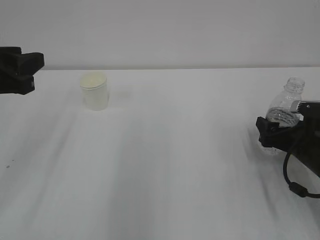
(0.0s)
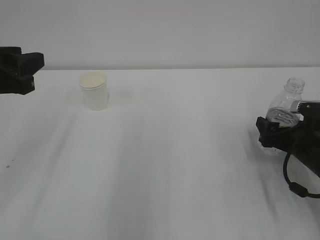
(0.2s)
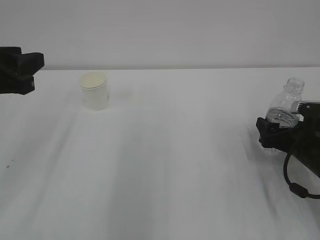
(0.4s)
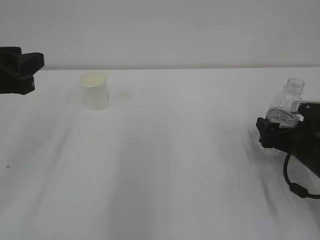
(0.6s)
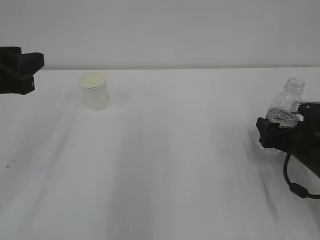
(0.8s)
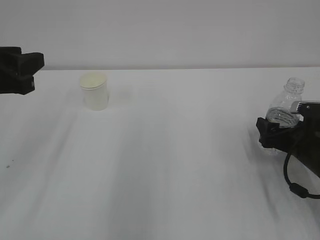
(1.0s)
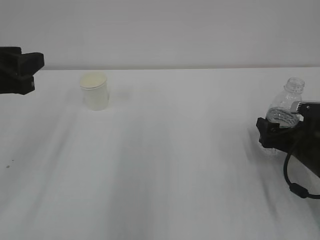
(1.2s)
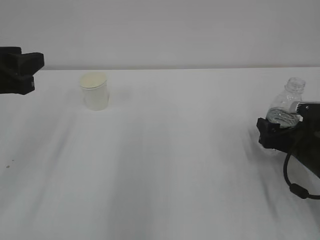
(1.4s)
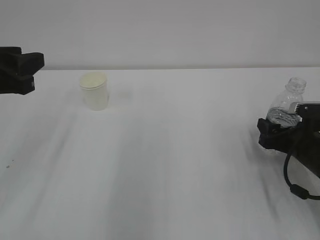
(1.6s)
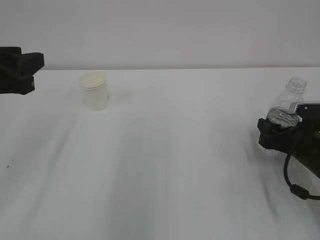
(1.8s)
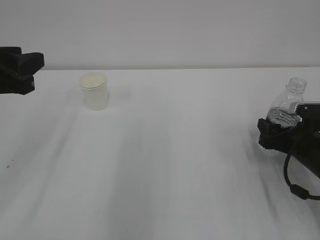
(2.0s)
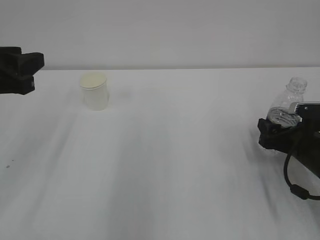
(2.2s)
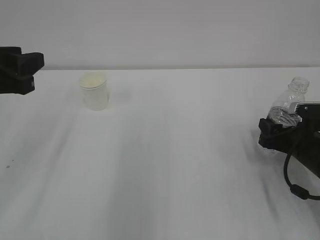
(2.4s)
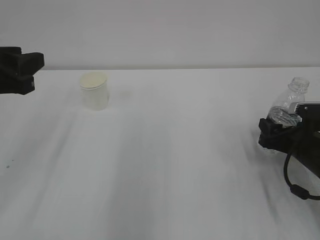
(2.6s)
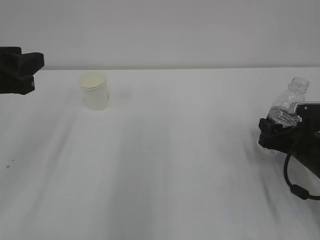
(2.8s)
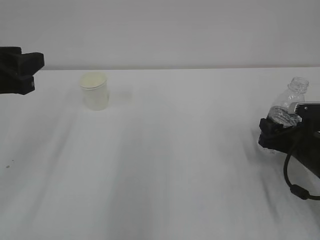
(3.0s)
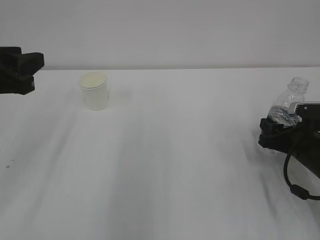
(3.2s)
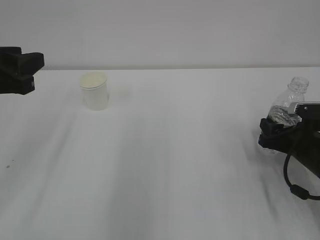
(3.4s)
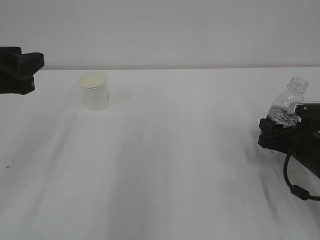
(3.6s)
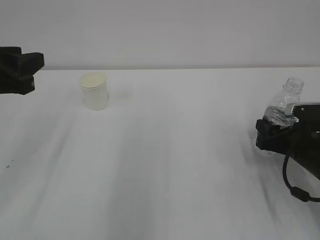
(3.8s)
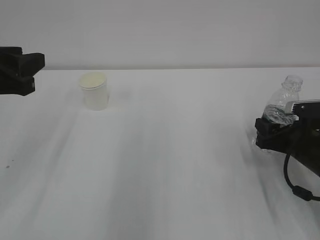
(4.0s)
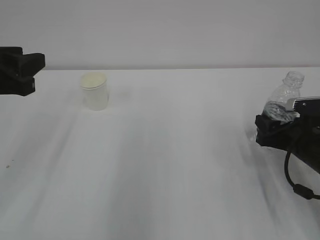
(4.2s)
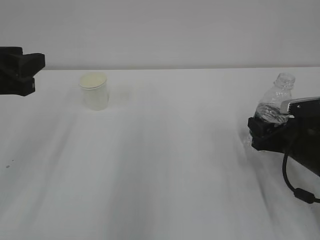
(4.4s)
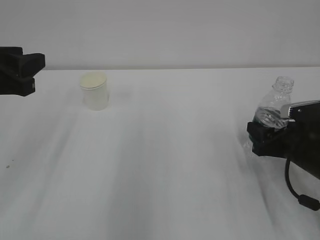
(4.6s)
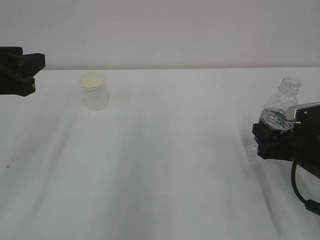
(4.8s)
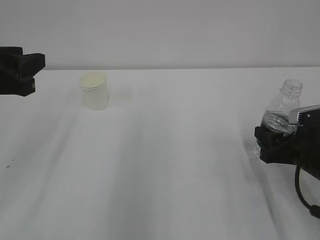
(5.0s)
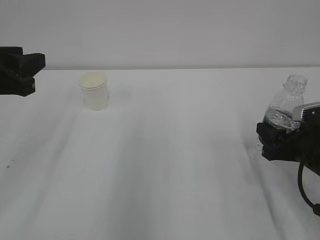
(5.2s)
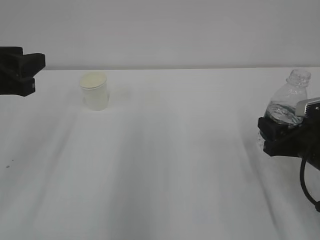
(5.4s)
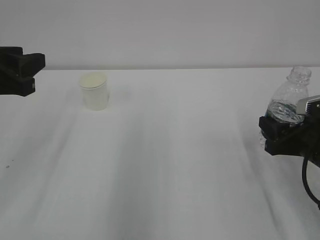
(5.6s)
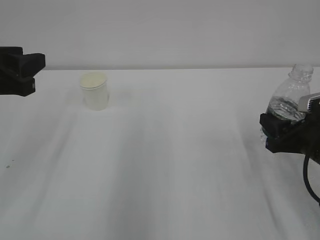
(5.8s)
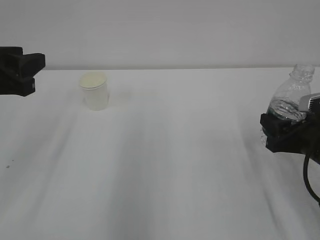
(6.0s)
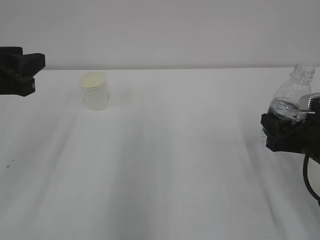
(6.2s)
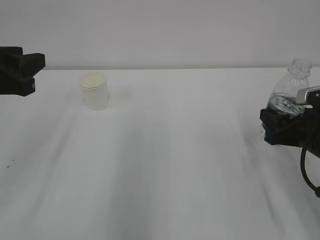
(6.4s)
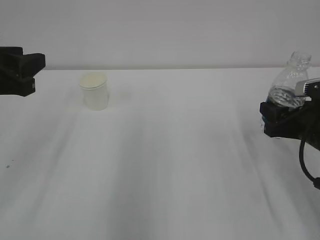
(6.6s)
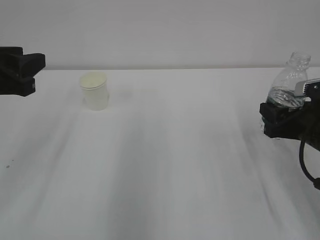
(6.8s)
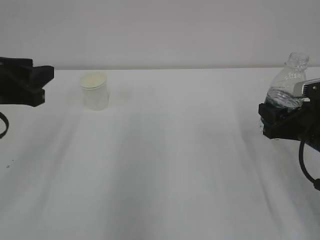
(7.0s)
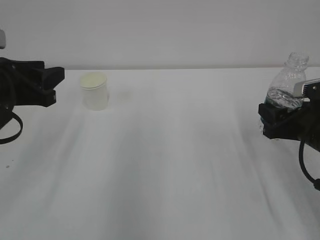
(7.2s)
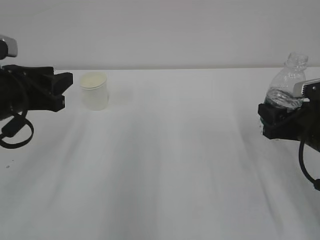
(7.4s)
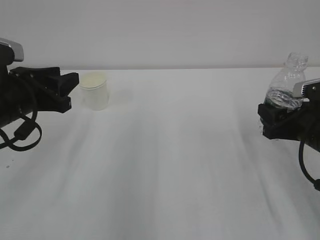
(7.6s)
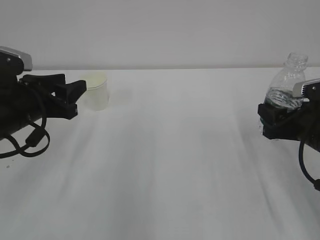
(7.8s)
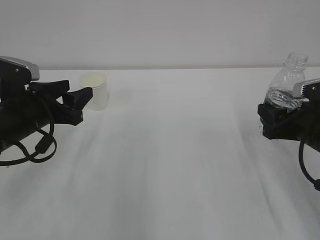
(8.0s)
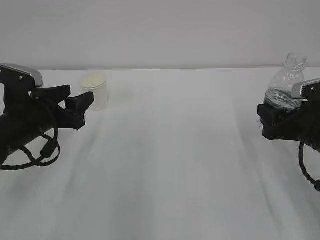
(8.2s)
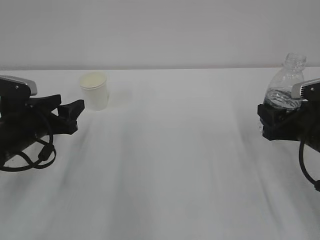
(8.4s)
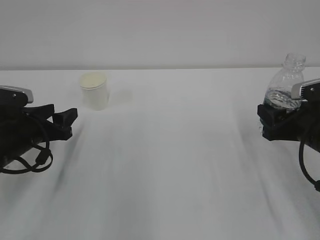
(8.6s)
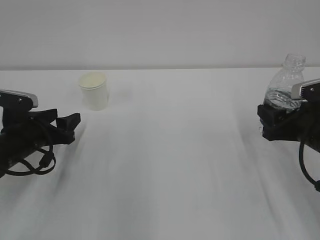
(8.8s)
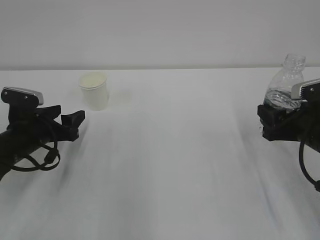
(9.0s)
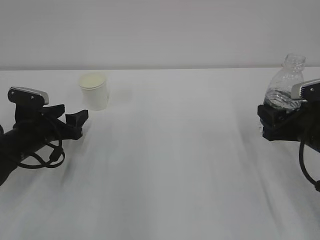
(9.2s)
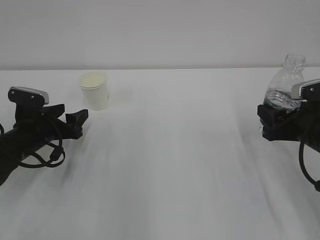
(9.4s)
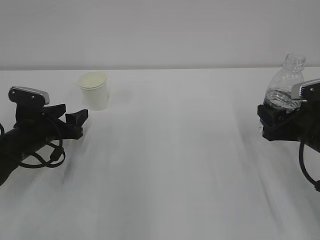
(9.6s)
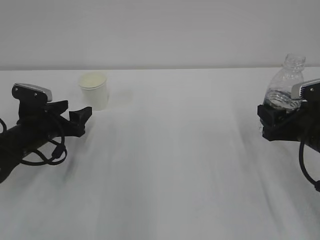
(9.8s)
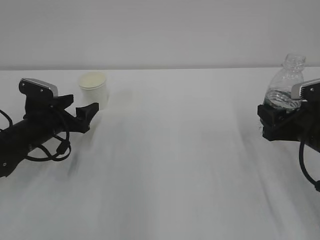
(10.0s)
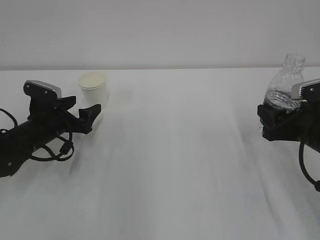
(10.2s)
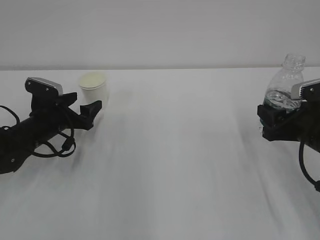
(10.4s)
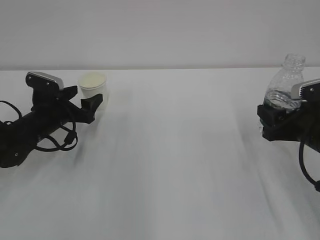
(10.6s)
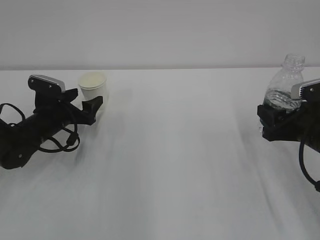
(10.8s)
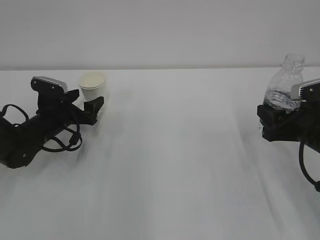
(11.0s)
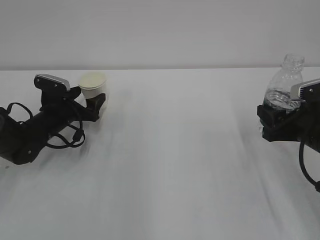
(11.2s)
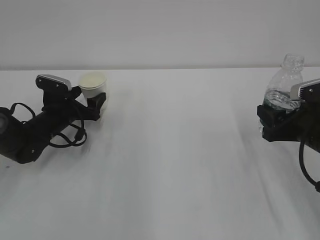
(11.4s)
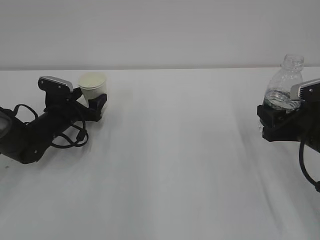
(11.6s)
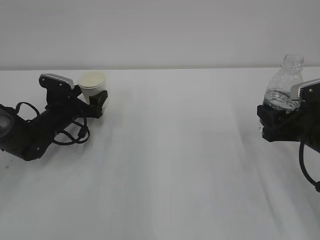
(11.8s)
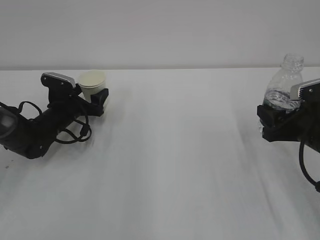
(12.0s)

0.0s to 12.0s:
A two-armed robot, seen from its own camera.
3.0s to 4.4s: There are only small adjustments of the grippers.
4.4s to 6.0s: The right gripper changes place by some 5 cm.
6.0s to 7.6s: The left gripper shifts approximately 5 cm downward.
7.6s to 9.0s: The left gripper is displaced downward by approximately 10 cm, and opens its fingers.
9.0s to 10.4s: The left gripper ends up approximately 5 cm from where it was.
10.4s to 12.0s: The left gripper goes some 5 cm forward.

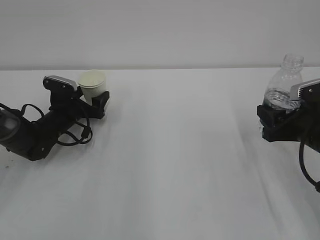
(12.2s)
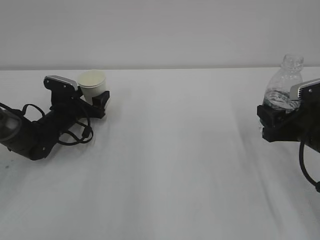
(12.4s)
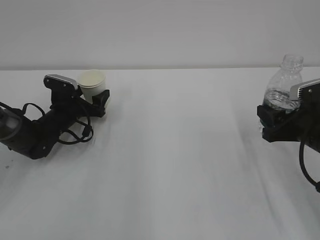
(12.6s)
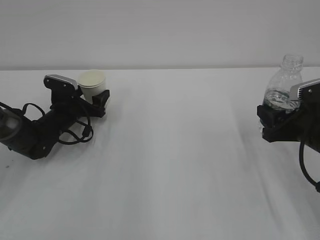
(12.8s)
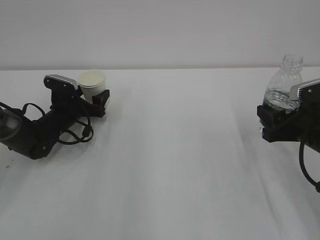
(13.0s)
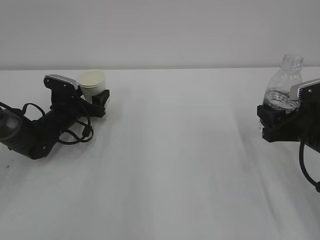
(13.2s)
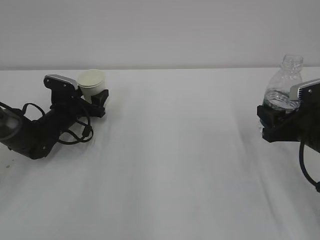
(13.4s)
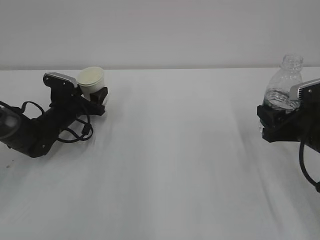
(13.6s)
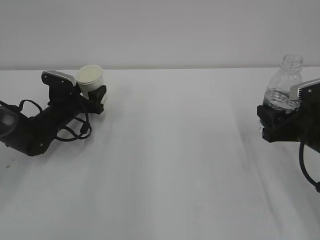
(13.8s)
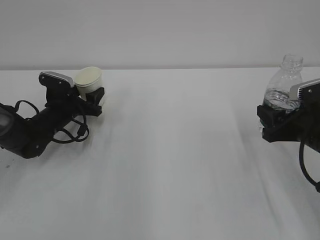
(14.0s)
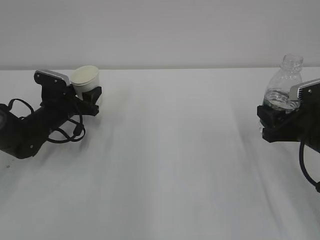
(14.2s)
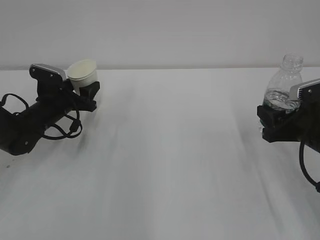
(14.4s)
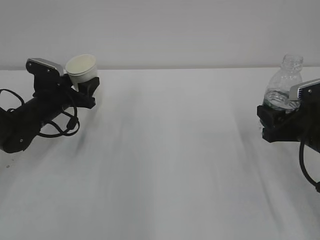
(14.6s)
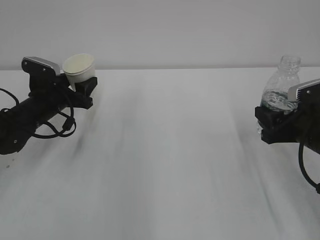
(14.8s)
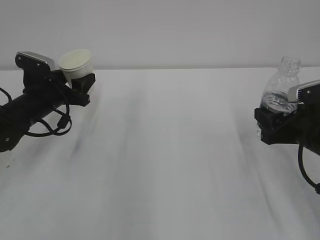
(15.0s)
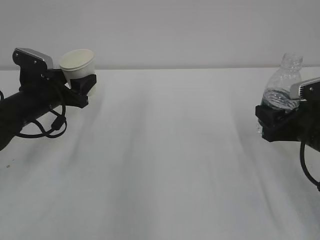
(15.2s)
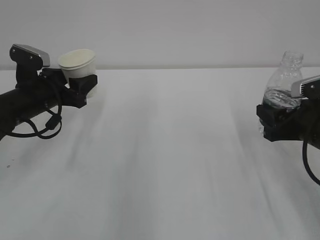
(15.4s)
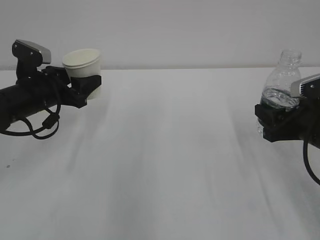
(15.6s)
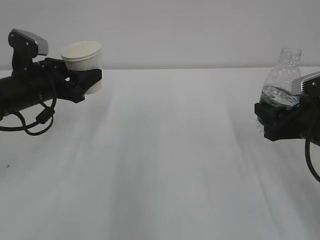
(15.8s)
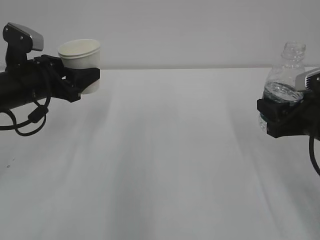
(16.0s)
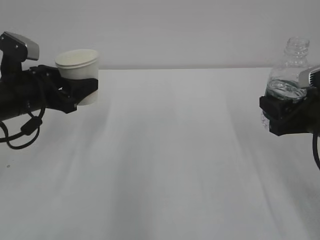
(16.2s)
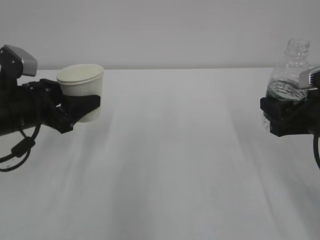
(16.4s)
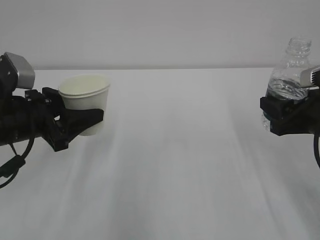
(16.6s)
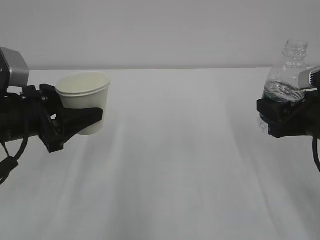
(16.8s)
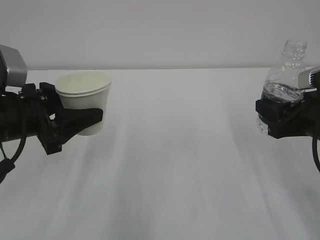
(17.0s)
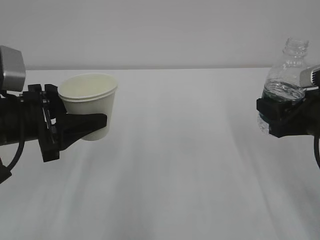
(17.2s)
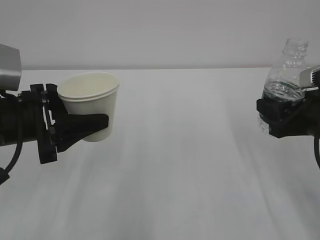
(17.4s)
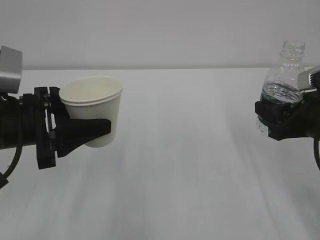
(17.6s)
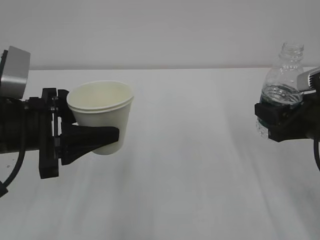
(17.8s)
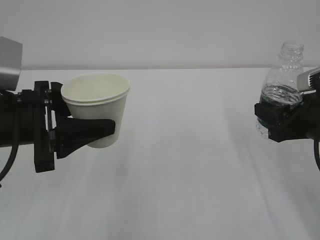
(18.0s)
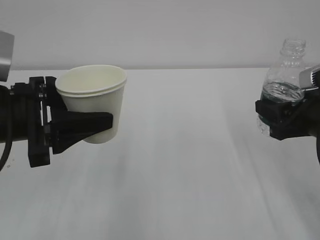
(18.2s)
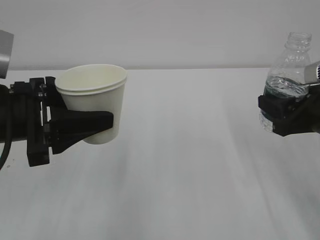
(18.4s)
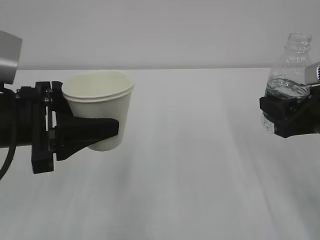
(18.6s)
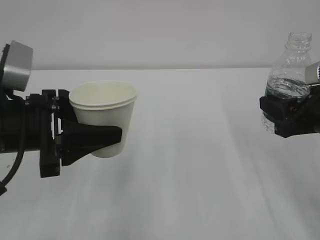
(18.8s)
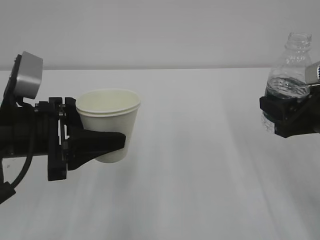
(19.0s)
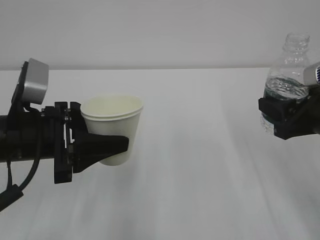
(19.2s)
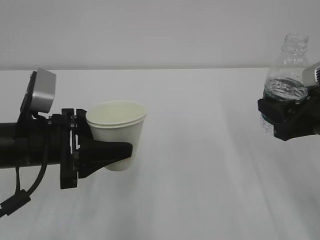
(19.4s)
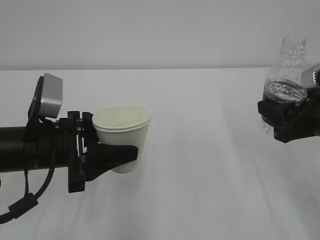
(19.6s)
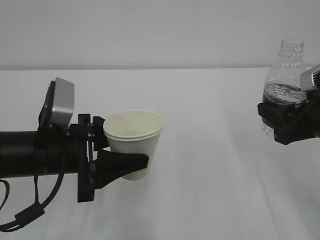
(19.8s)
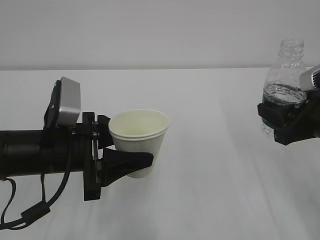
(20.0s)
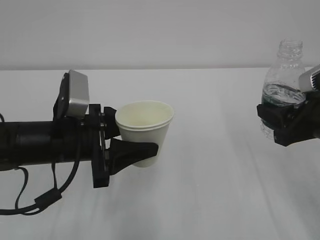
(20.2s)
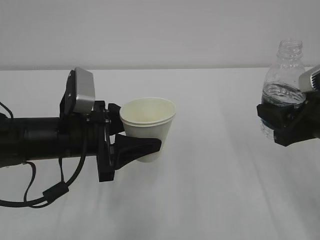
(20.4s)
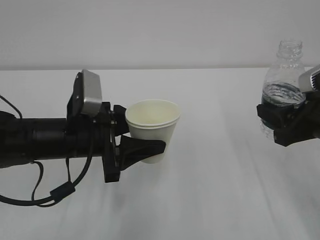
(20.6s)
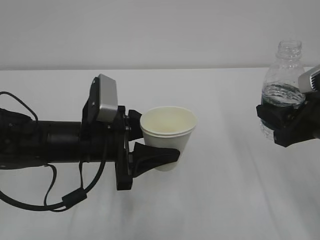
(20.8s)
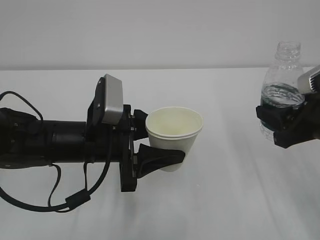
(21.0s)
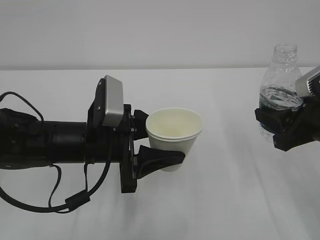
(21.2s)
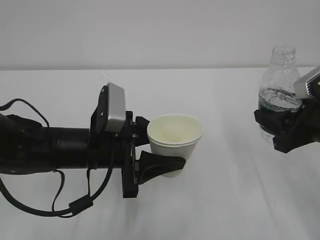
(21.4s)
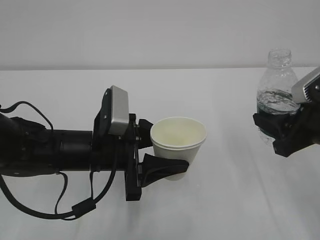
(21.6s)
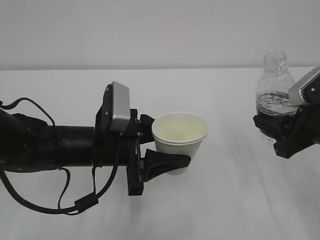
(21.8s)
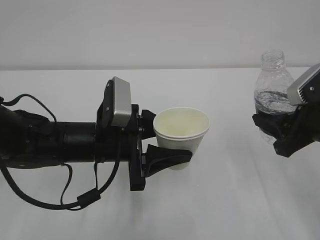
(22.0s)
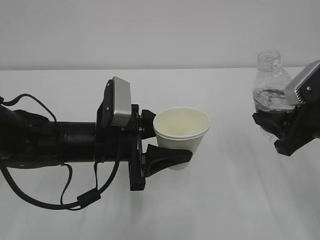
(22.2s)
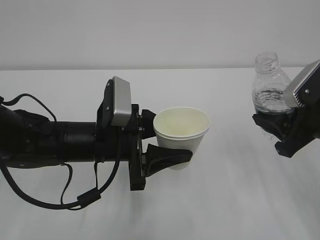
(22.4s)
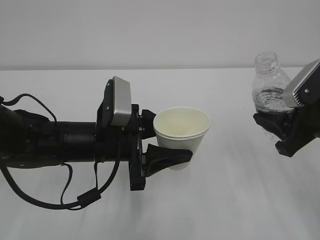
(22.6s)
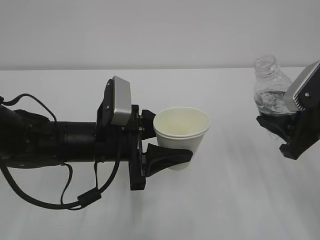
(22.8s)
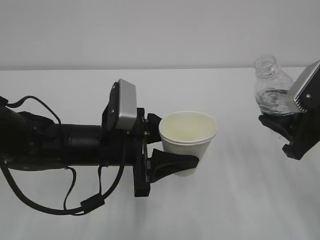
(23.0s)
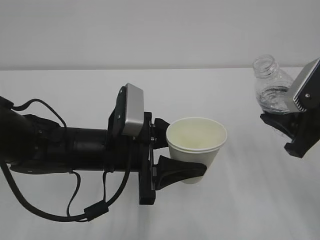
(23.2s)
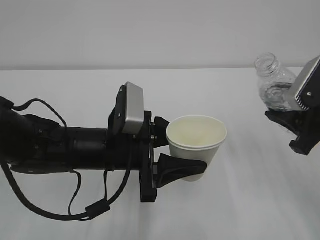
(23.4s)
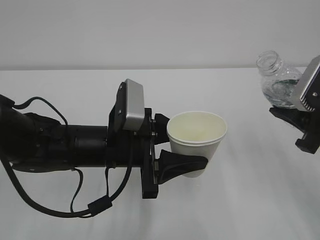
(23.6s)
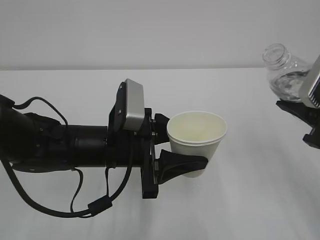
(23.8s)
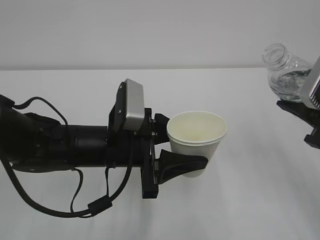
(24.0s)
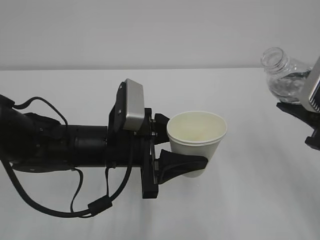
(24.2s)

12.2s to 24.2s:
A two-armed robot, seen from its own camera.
12.2s to 13.8s: The left gripper closes up.
13.8s to 15.2s: The left gripper is displaced upward and backward by roughly 10 cm.
15.2s to 16.6s: The left gripper is displaced backward by roughly 10 cm.
16.6s to 18.2s: The left gripper travels upward by roughly 5 cm.
18.2s to 19.8s: The left gripper is displaced downward by about 5 cm.
19.8s to 21.2s: The left gripper travels to the right by approximately 5 cm.
21.2s to 22.6s: The grippers make only small movements.
